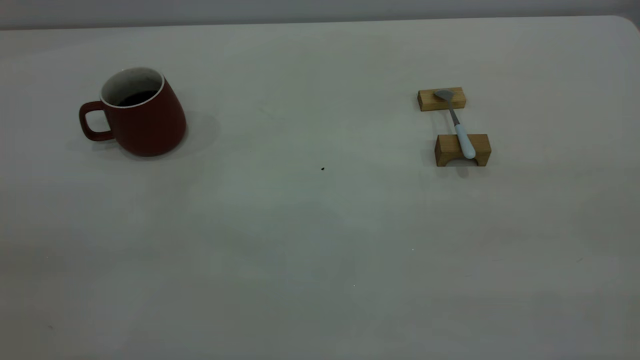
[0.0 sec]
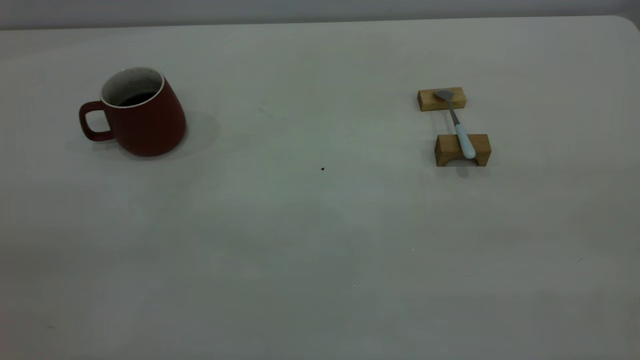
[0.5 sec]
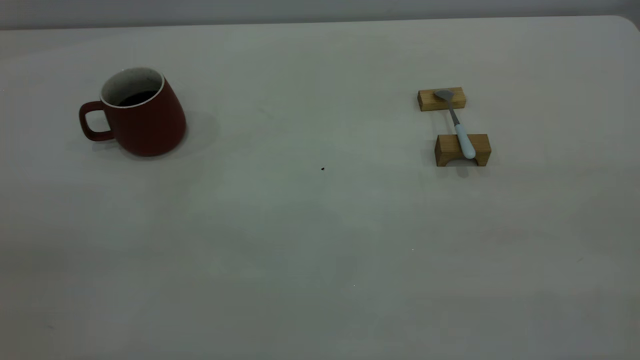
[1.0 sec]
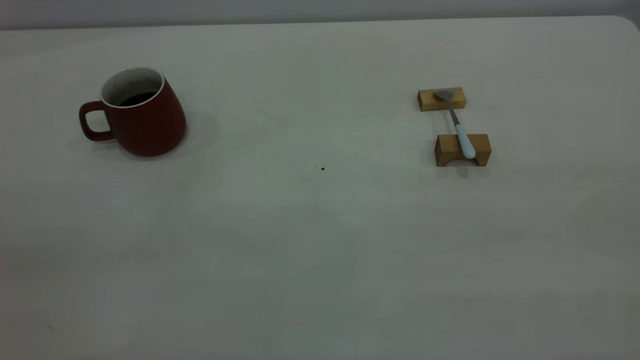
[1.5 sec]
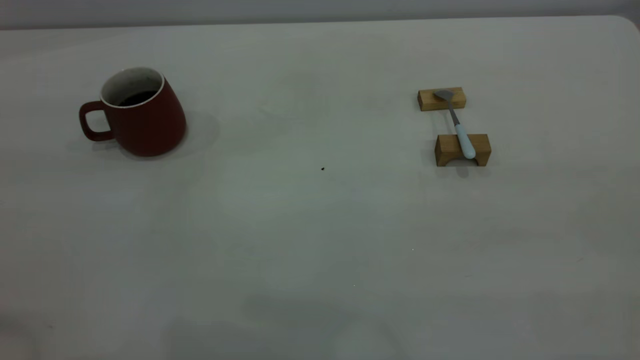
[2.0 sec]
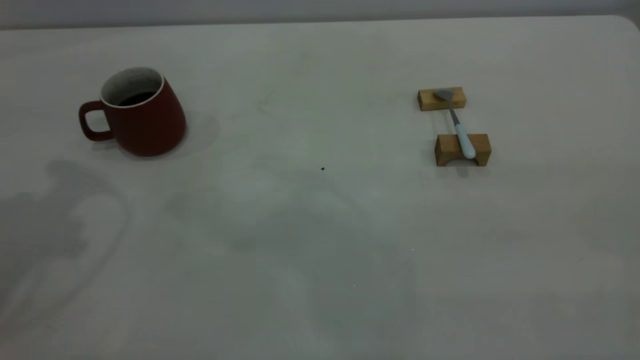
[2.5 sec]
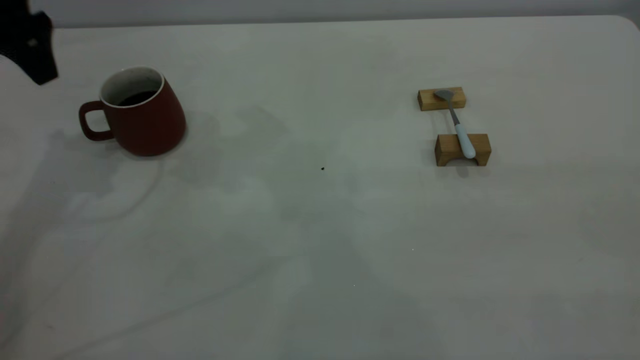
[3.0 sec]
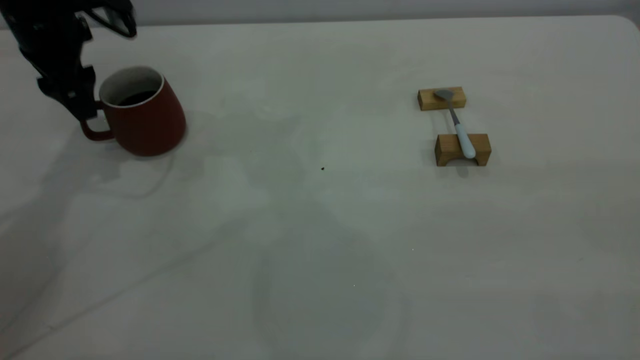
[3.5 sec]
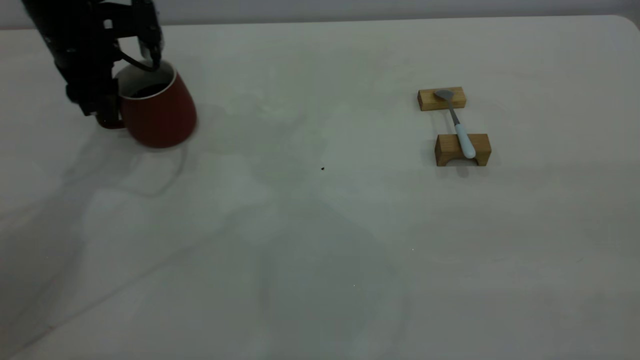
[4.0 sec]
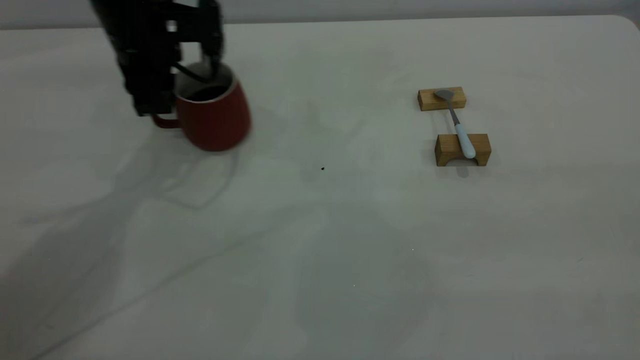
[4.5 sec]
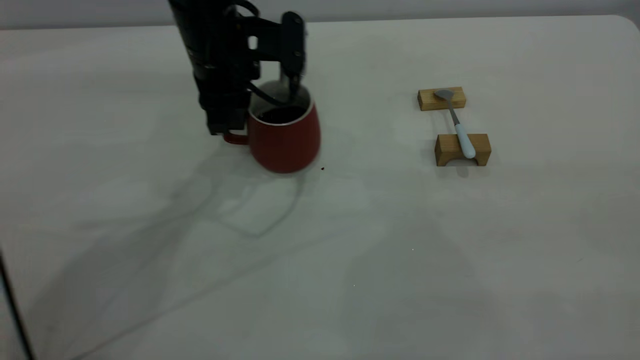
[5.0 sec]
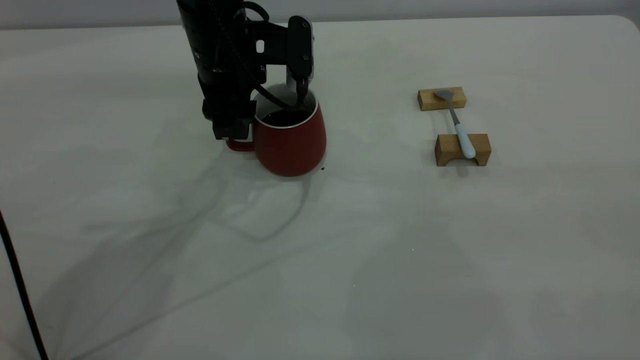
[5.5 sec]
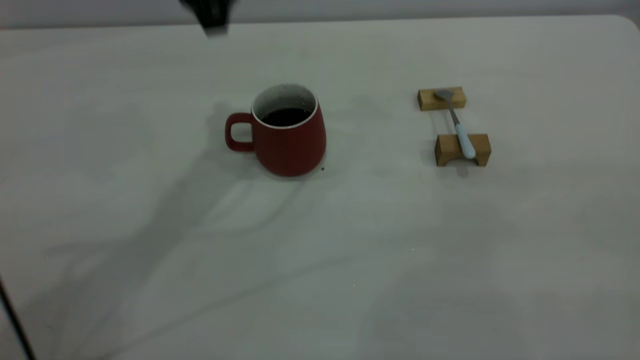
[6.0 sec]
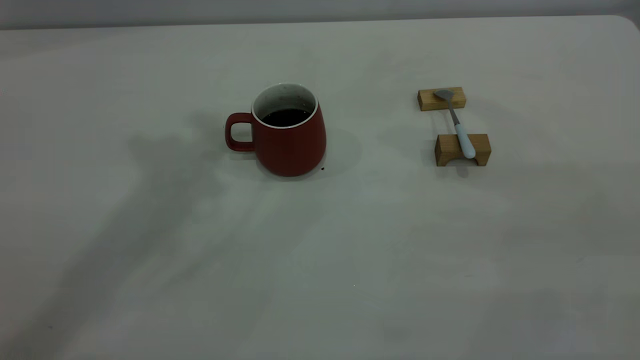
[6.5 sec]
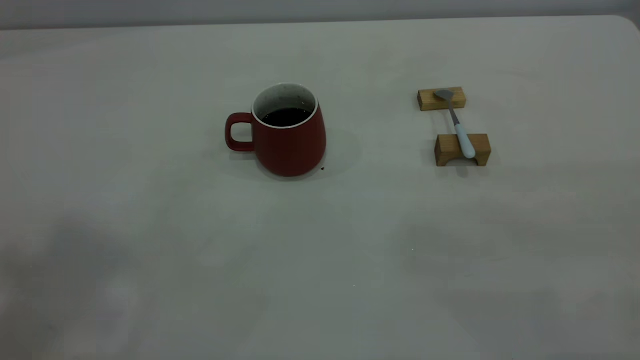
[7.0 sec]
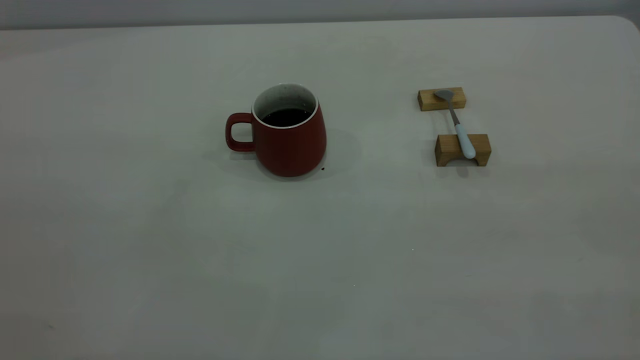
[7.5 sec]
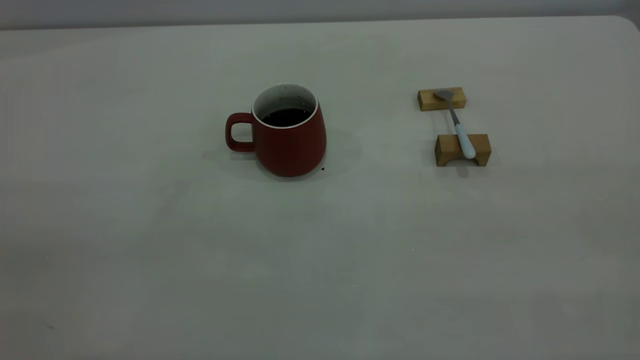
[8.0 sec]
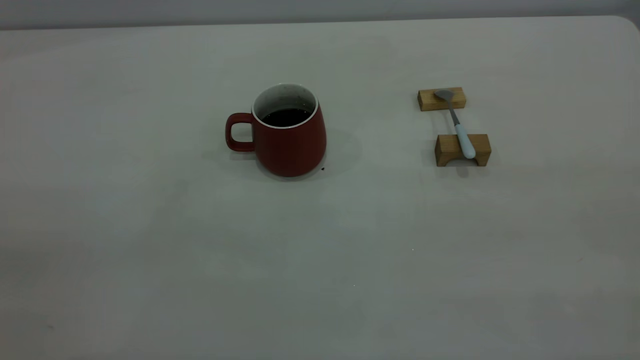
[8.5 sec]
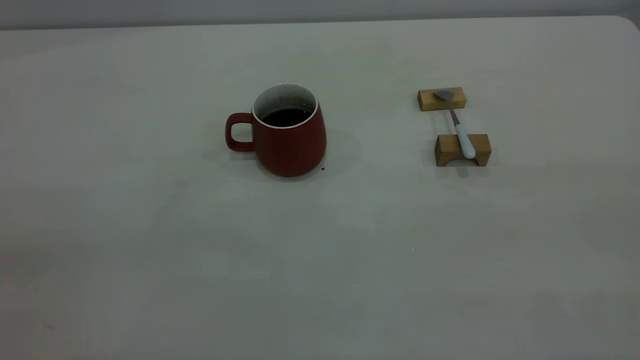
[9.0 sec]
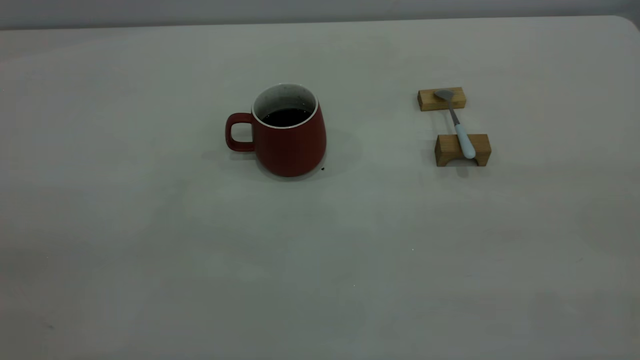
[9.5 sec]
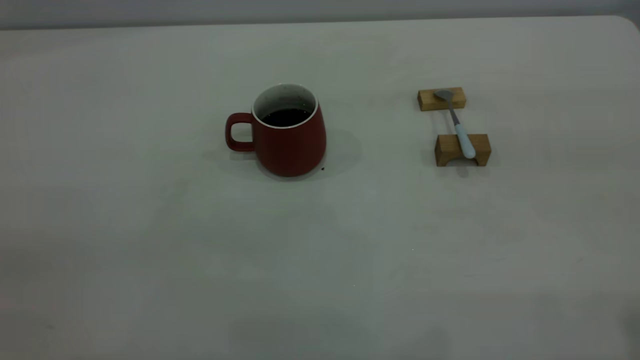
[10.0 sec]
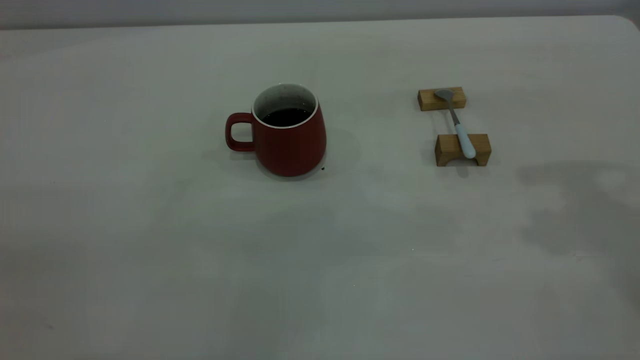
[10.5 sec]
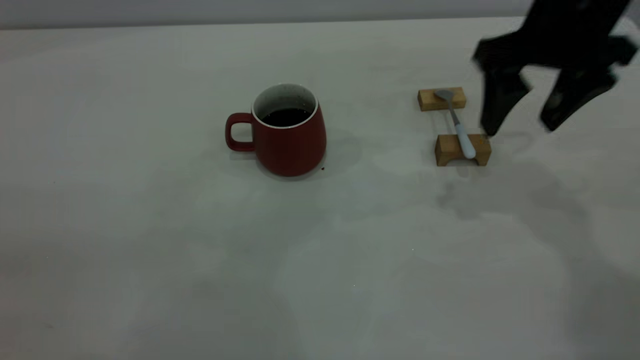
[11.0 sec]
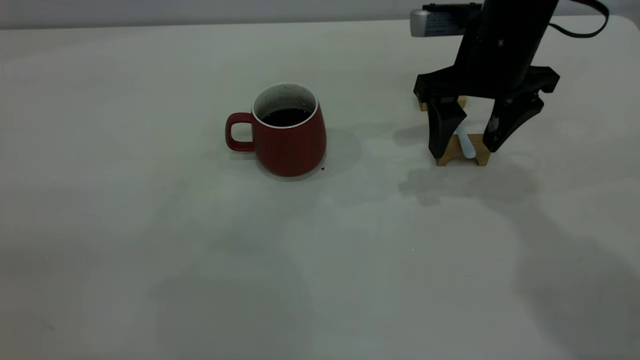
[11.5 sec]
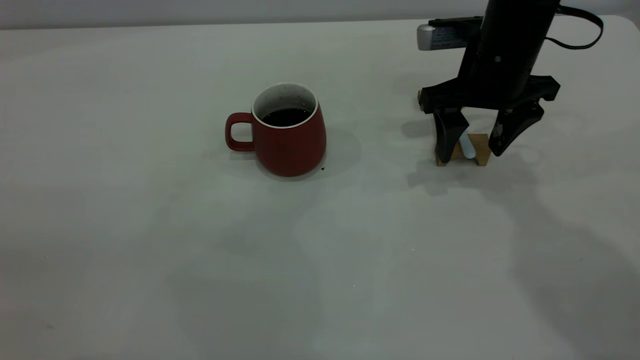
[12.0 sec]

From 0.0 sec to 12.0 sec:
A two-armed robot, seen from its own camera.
Step, from 0.0 sec to 5.5 sec: Move the cup with coffee to the center of view.
From 2.0 sec to 4.0 sec: The left gripper travels forward and downward by some 40 cm, and opens, then closes again.
From 4.0 sec to 6.0 sec: The left gripper goes roughly 20 cm to the right and upward, and opens.
From 6.0 sec to 8.0 sec: The left gripper is displaced backward and to the left by approximately 50 cm, and closes its fingers.
From 10.0 sec to 12.0 sec: The right gripper heads forward, downward and to the left, covering about 40 cm.

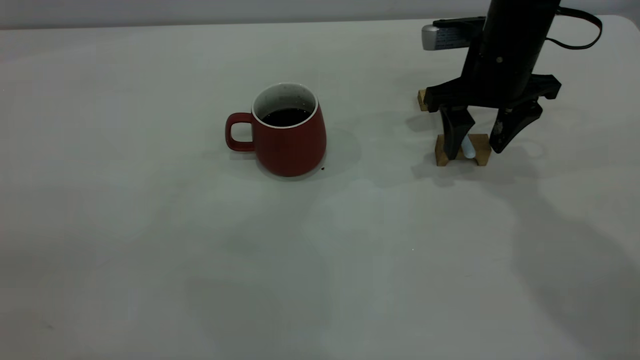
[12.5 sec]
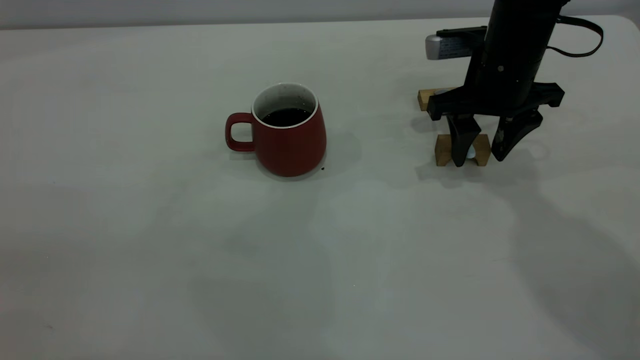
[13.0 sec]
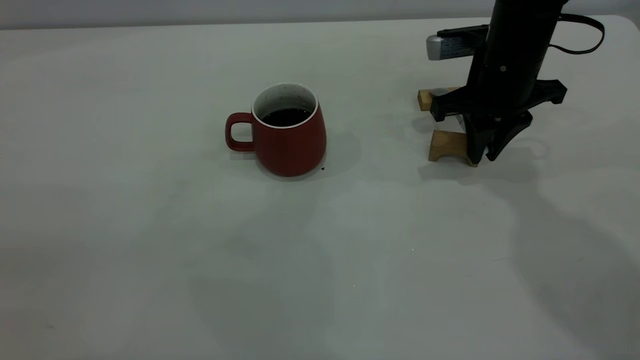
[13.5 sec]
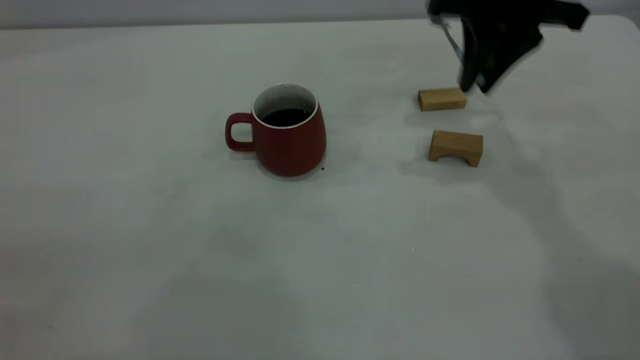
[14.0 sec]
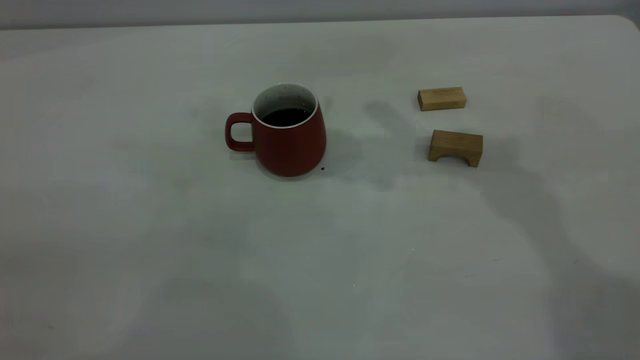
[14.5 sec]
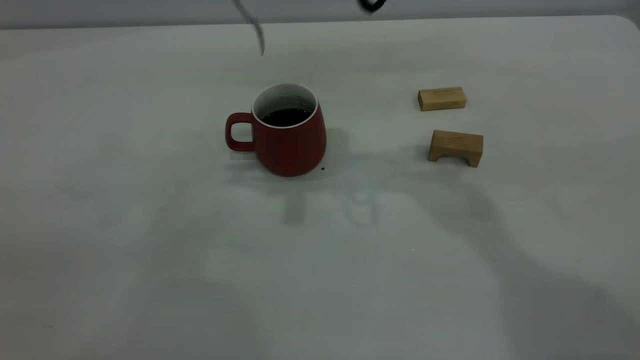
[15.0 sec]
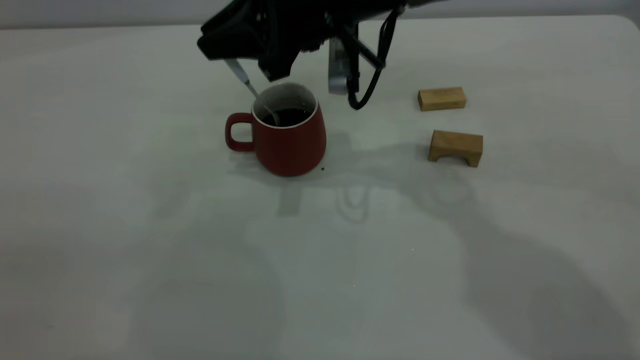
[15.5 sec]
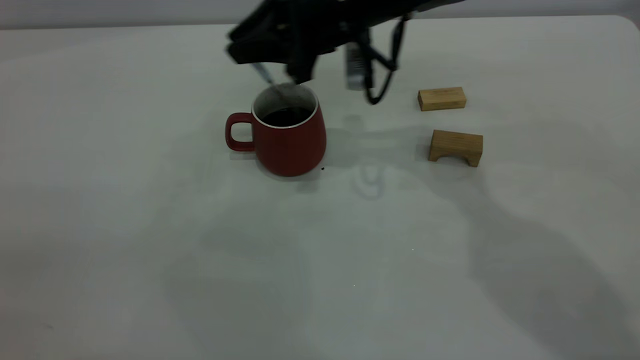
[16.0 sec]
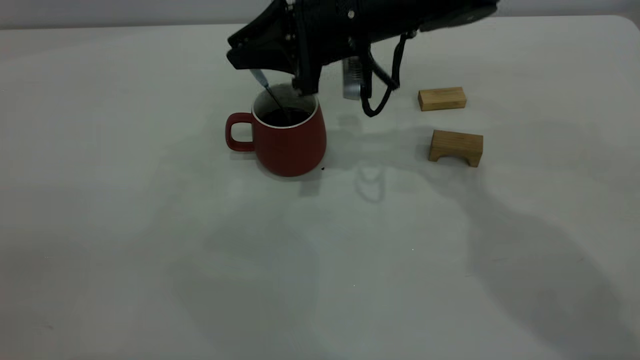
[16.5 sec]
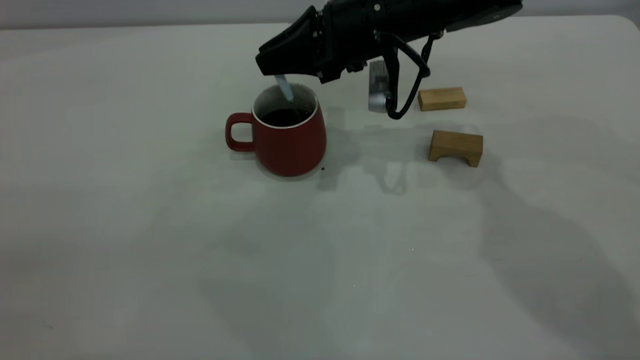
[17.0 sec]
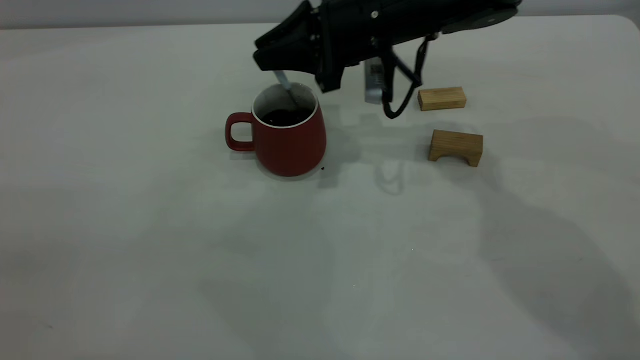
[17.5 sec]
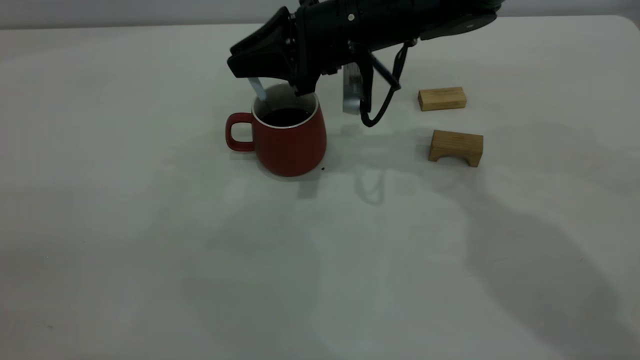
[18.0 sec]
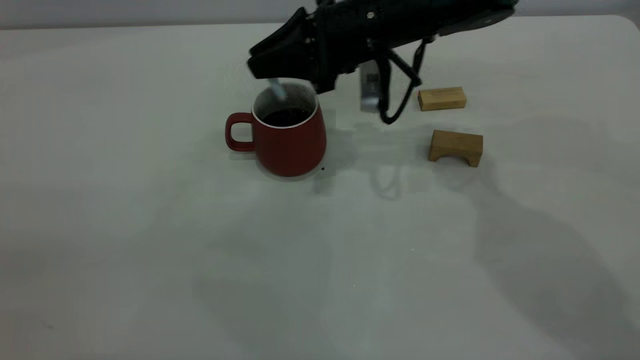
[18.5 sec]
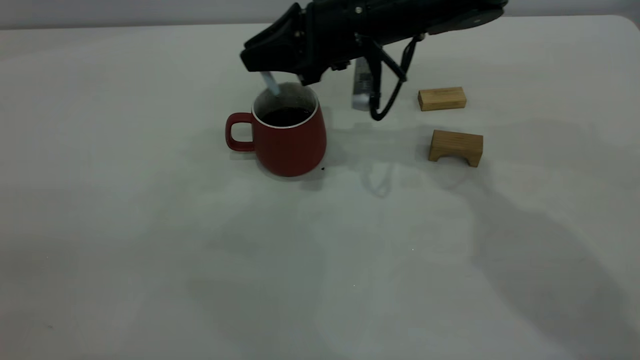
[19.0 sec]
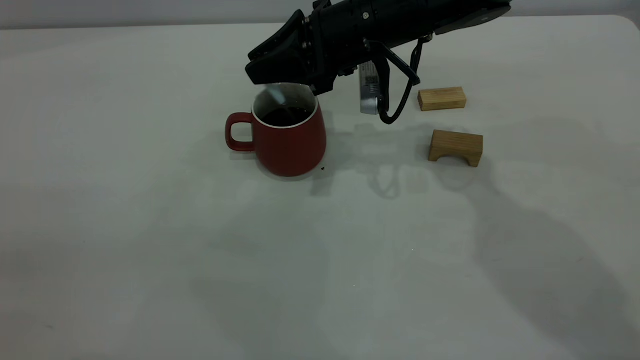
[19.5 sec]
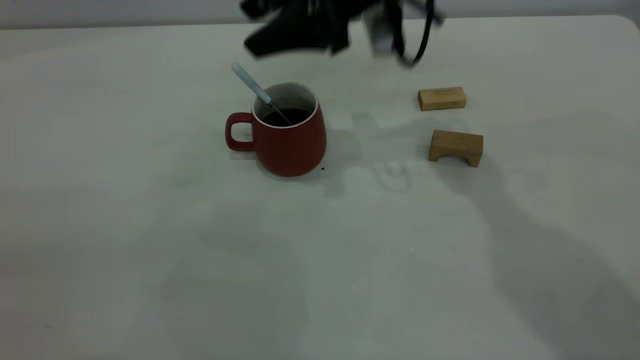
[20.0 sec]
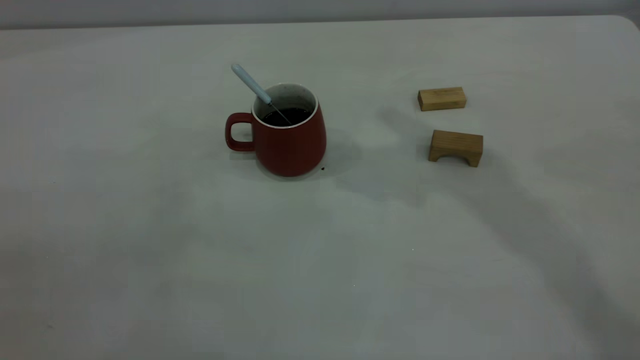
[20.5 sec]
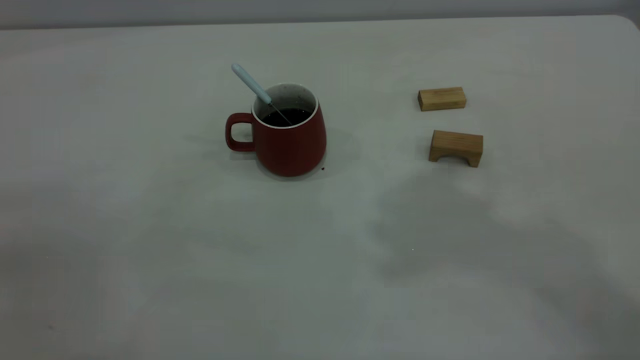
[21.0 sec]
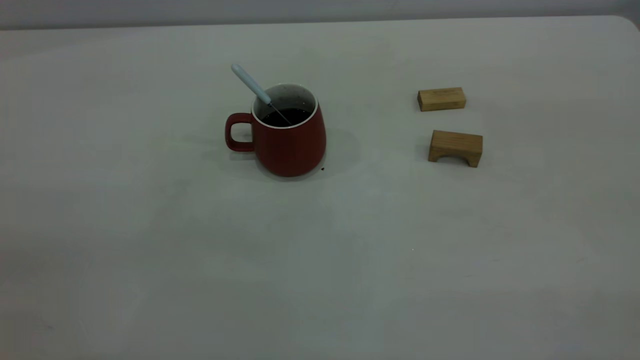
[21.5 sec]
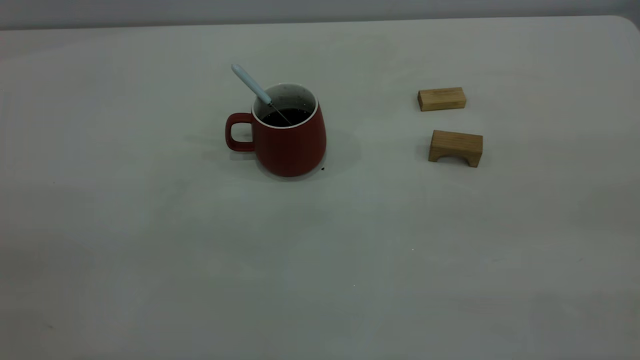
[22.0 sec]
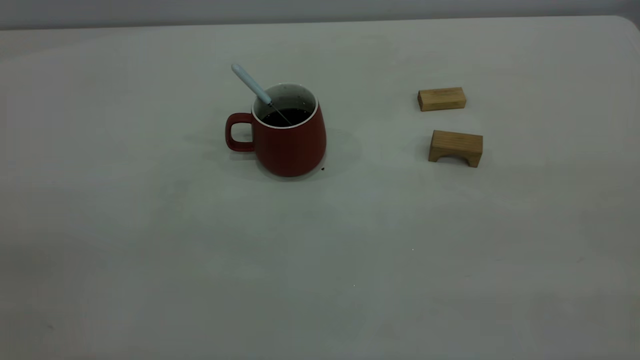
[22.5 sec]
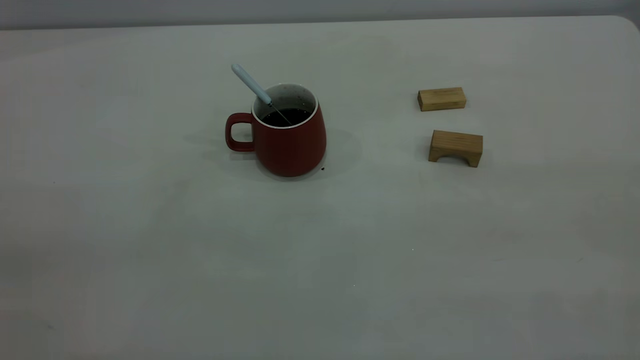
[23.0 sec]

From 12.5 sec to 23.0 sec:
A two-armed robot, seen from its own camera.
Step, from 14.0 sec to 19.5 sec: Stir the coffee in the cup.
From 12.5 sec to 14.5 sec: The right gripper moves upward and to the left, approximately 20 cm, and closes up.
From 14.5 sec to 16.5 sec: The right gripper goes some 15 cm downward.
From 19.0 sec to 21.0 sec: The right gripper goes some 40 cm upward and backward, and opens and closes again.
